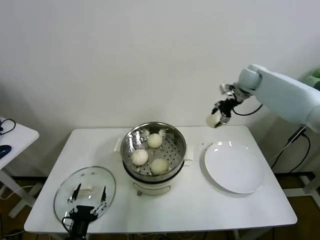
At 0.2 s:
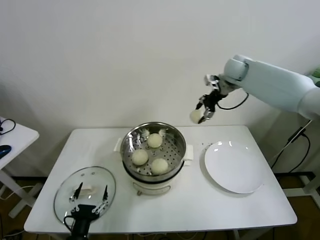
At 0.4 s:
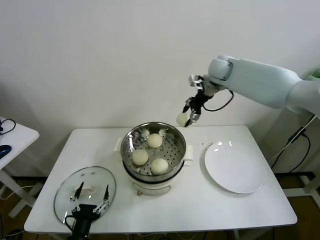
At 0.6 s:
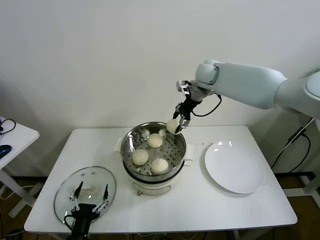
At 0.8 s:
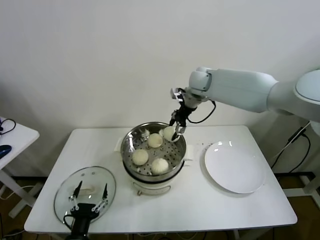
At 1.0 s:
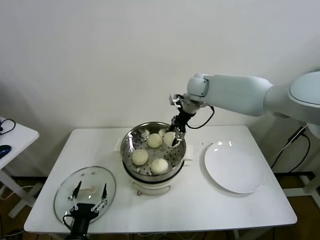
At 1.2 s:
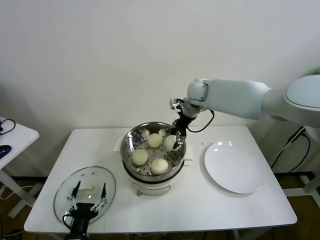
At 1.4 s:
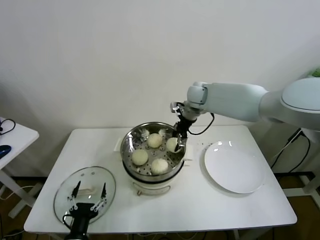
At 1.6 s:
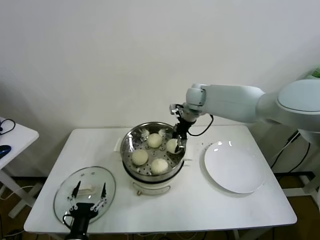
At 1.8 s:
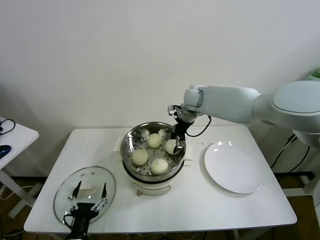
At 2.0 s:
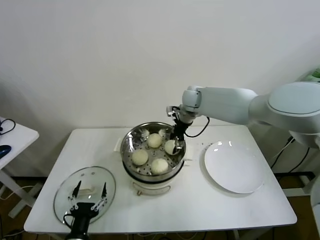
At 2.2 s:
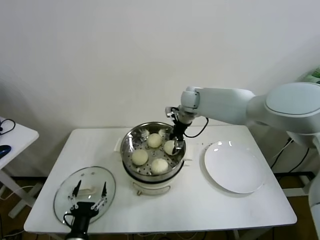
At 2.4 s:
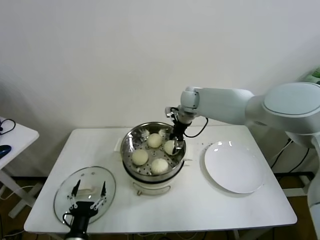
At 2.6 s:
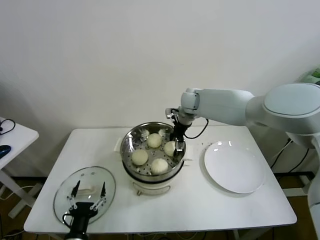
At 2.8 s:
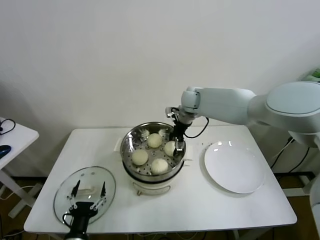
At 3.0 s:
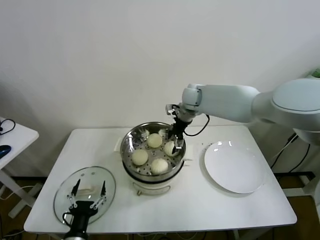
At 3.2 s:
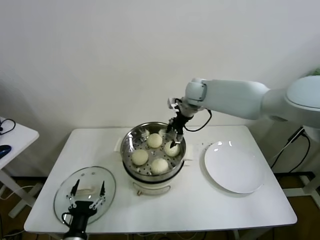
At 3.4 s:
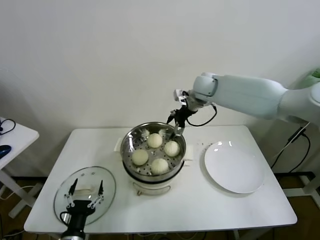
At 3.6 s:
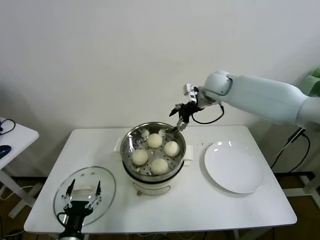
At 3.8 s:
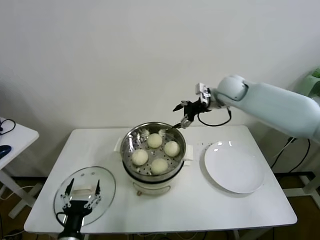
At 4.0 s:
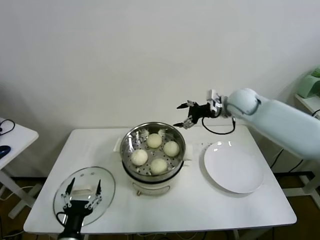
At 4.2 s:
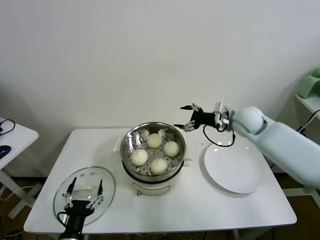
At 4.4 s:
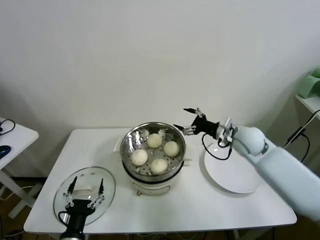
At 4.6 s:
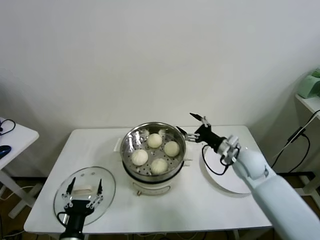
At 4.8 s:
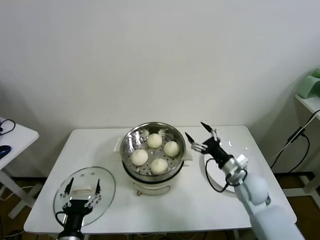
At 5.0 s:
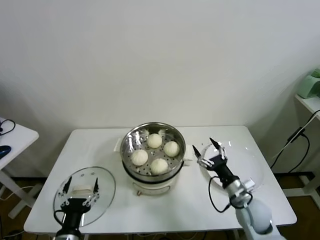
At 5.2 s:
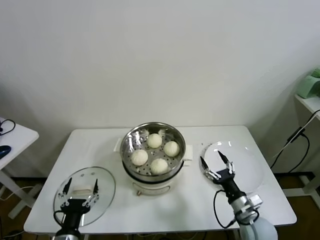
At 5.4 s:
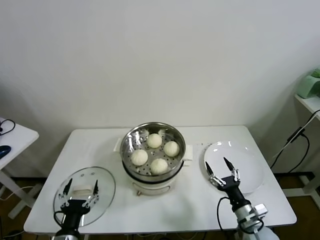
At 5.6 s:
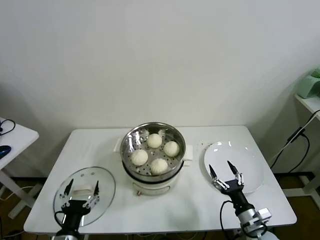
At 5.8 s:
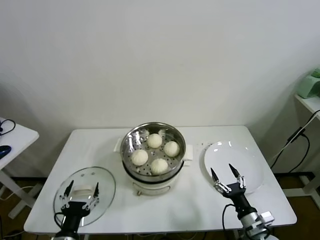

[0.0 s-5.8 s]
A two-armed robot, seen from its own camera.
Task of the whole recording: take steamed baozi put them in steamer.
Step, 0.0 to 2.6 s: Place the baozi on the steamer with right gripper.
0.0 to 1.4 s: The right gripper goes roughly 20 cm to the left.
1.4 to 2.8 s: The right gripper opens its fingers.
2.8 to 4.4 s: The right gripper moves to the right and backward, some 20 cm.
4.4 to 5.8 s: The right gripper moves backward and downward, approximately 35 cm.
